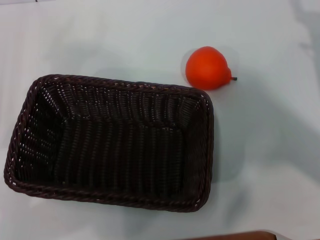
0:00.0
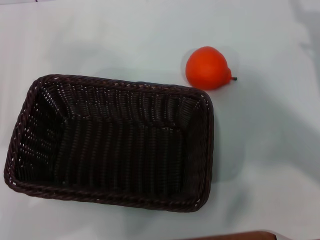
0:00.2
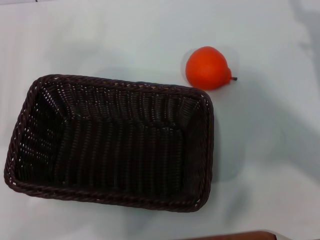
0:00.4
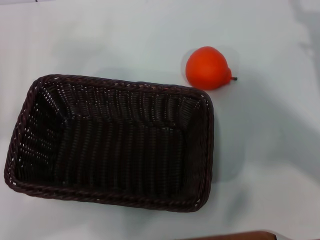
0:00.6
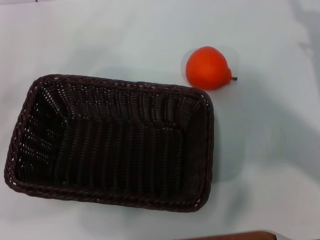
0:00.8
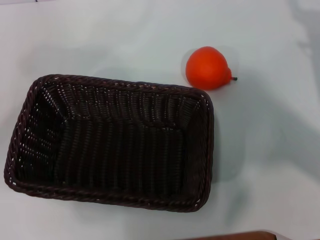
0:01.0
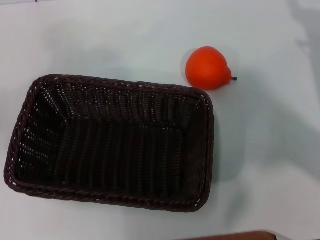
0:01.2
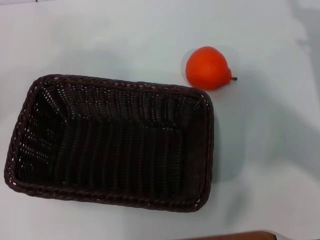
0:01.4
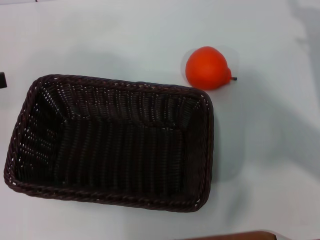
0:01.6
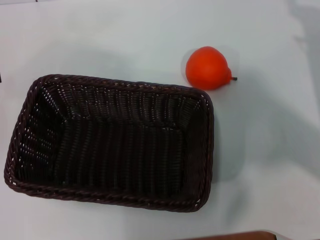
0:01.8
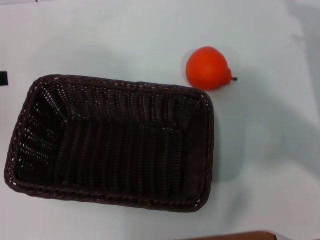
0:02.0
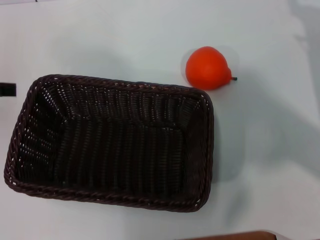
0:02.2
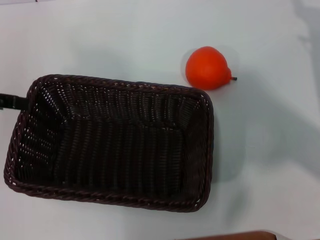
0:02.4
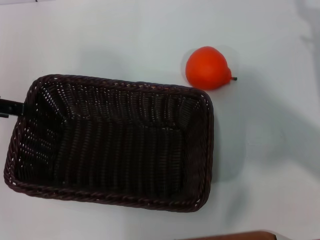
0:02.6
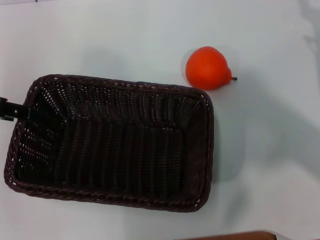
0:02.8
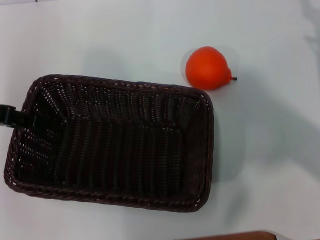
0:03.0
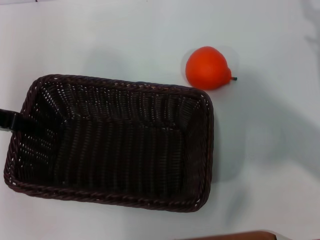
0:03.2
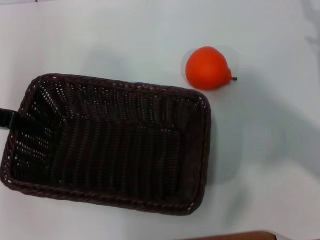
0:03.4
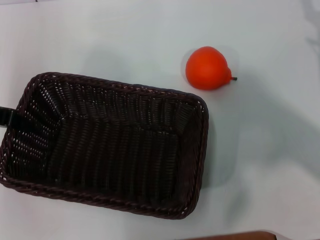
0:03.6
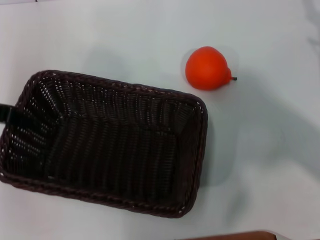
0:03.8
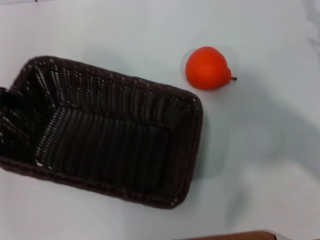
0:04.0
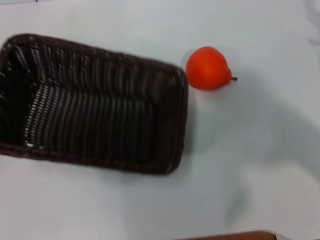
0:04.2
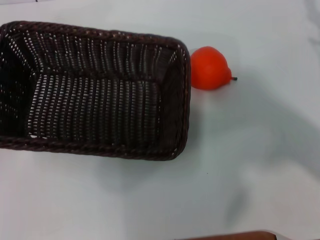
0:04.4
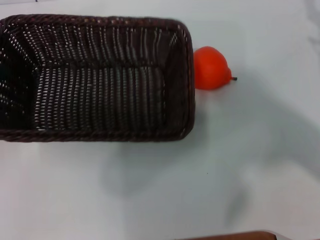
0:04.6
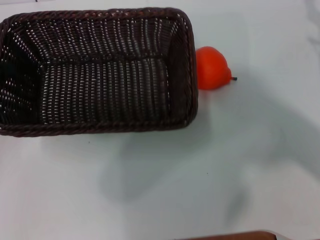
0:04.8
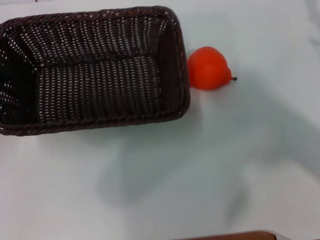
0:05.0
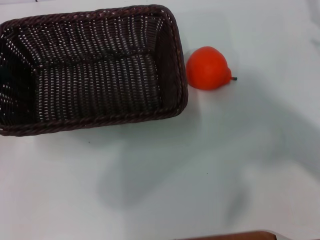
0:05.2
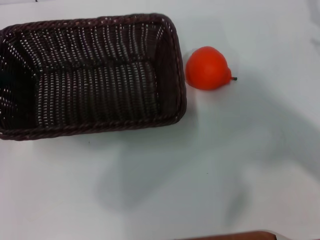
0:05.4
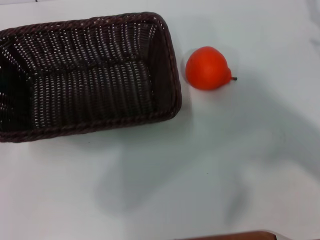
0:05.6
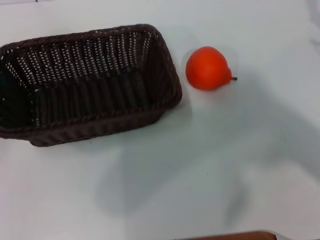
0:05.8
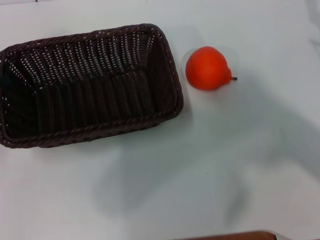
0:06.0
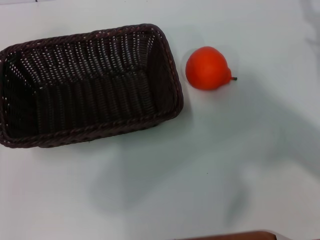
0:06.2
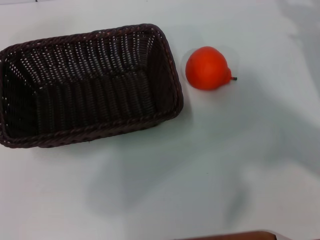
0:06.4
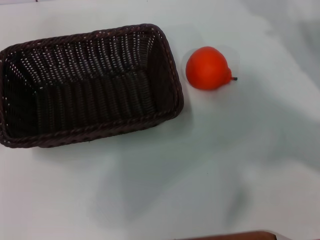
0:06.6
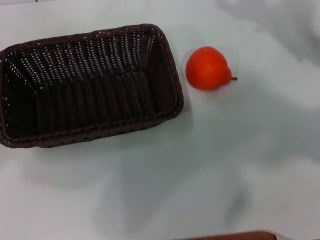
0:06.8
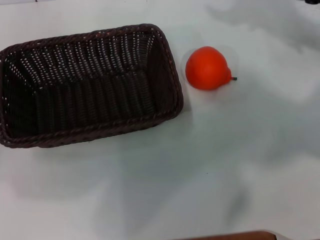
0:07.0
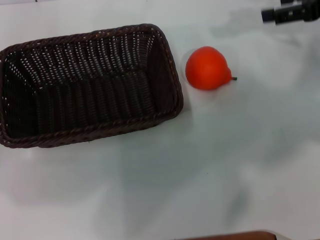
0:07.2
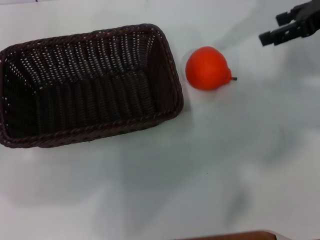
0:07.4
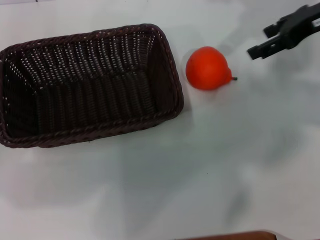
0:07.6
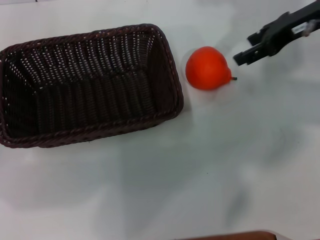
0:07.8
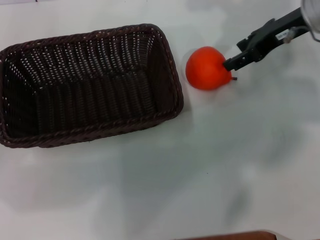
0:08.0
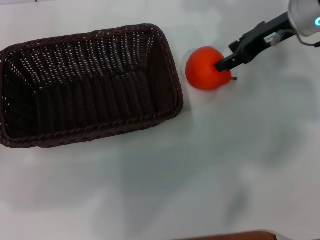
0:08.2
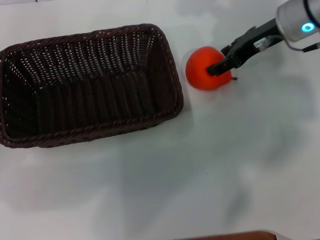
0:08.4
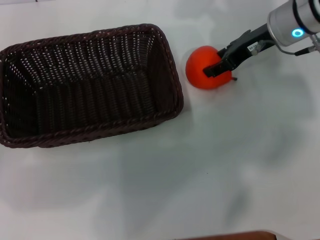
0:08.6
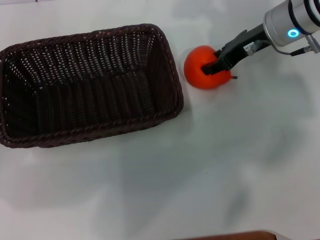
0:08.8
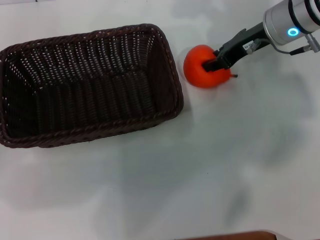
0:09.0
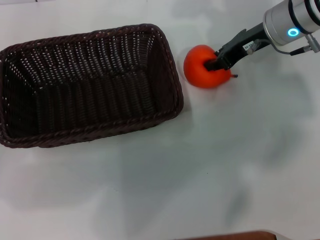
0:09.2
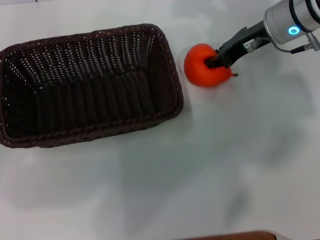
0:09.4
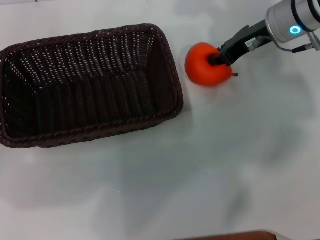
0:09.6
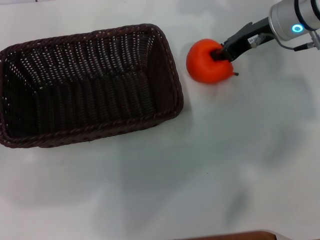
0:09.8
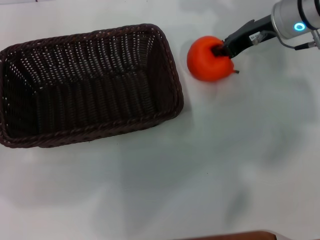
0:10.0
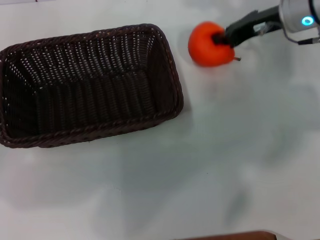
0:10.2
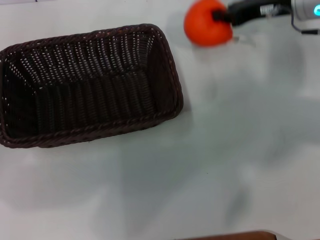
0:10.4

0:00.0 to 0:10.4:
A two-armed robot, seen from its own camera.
Task of the whole recording: the left gripper pick up the black basket and place it horizontally in the middle of the table, the right gripper pick up the orange and place it into the black basket.
Step, 0:00.0 to 0:04.0: Pick up the dark basket with the left gripper.
Step, 0:04.2 to 0:06.2: Place the dark basket in the center of view with the left gripper.
Step, 0:06.4 to 0:10.2: Pick up the orange with the right gripper.
0:00.0 to 0:01.4: The left gripper is displaced upward and forward by about 10 cm.
0:01.4 to 0:03.0: The left gripper heads to the right, covering about 10 cm.
0:03.0 to 0:04.4: The left gripper goes some 5 cm to the left, and closes.
0:04.4 to 0:06.0: The left gripper shifts approximately 5 cm downward, and opens its fingers.
0:06.0 to 0:07.4: The right gripper shifts some 20 cm upward and forward.
0:07.4 to 0:09.0: The right gripper moves to the left and downward, roughly 15 cm, and closes.
0:09.0 to 0:10.4: The right gripper closes.

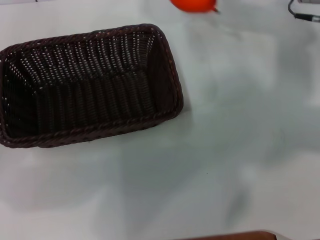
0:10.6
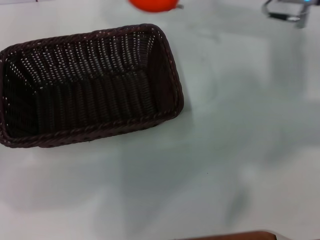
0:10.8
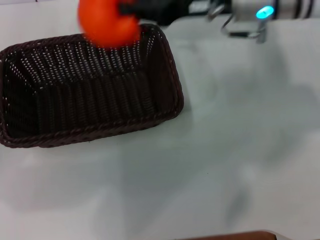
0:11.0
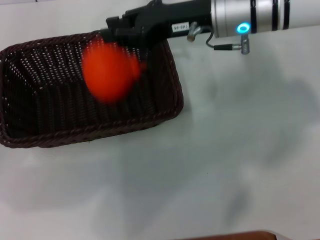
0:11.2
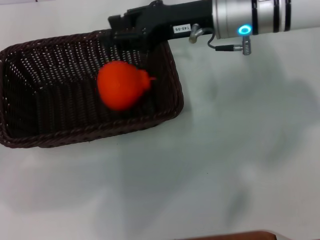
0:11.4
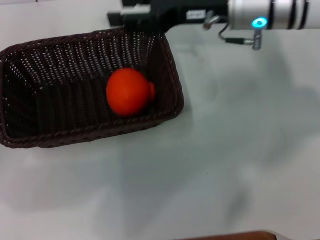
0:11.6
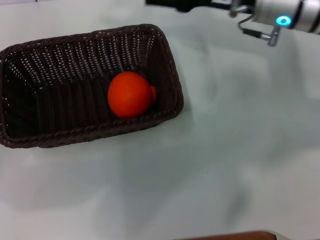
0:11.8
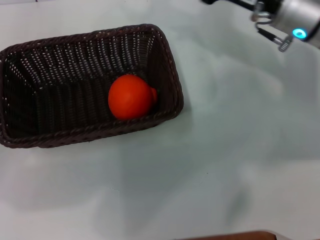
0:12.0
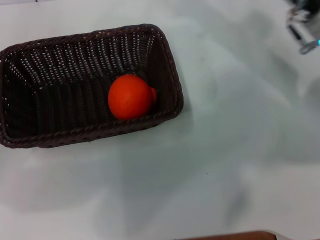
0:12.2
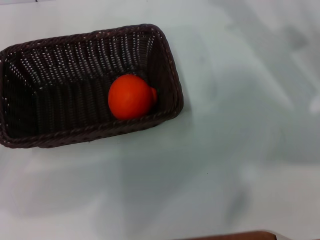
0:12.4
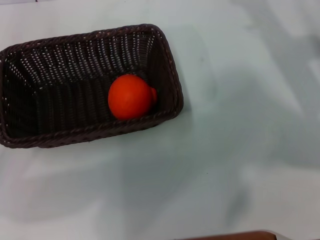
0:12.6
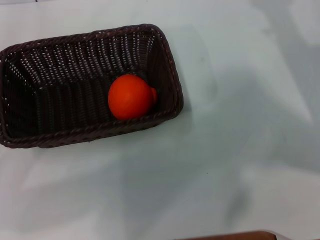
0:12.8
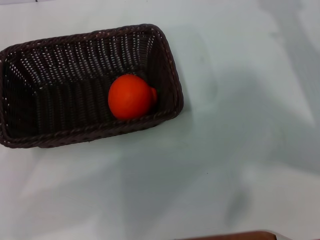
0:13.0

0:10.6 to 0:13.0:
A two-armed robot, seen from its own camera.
Task of the whole recording: the left gripper pick up the black basket and place it horizontally in the middle of the table, the right gripper pick up the orange and place it into the black basket.
Step, 0:10.6 to 0:11.6: Place the orange into the dark basket with the right gripper.
0:10.6 to 0:11.8: The right gripper heads to the left, covering approximately 5 cm, and opens.
0:11.8 to 0:13.0: The right gripper is displaced to the right, backward and downward by approximately 20 cm.
